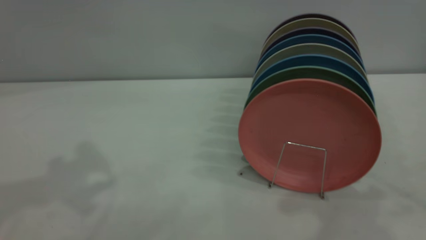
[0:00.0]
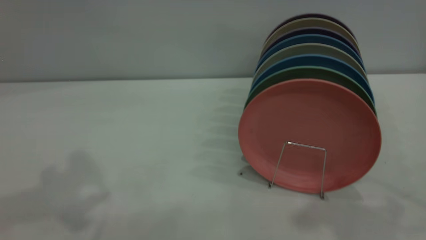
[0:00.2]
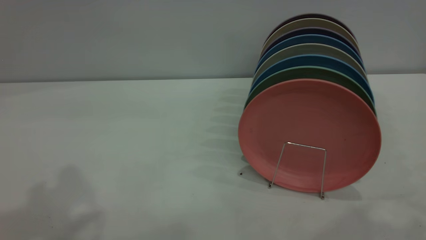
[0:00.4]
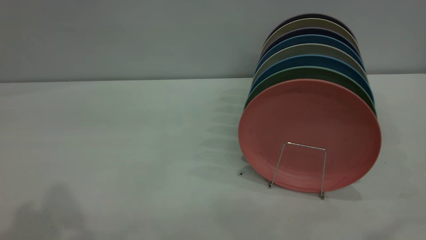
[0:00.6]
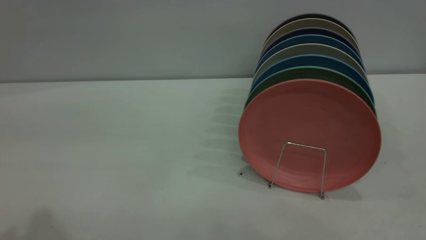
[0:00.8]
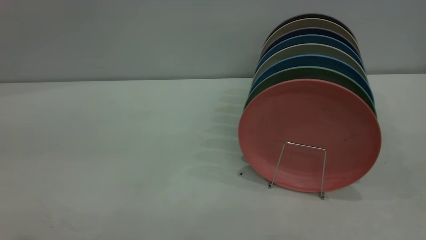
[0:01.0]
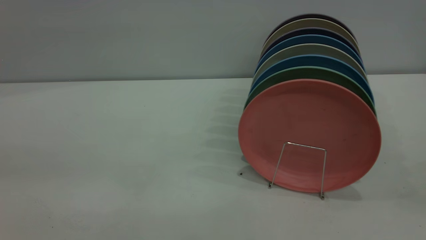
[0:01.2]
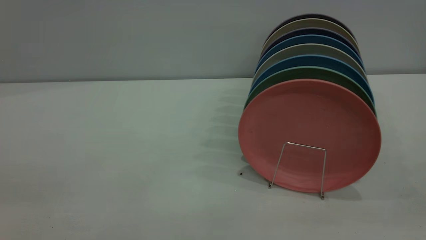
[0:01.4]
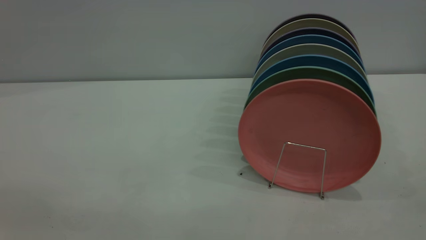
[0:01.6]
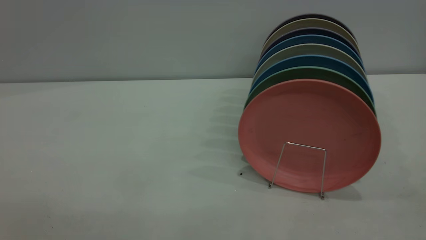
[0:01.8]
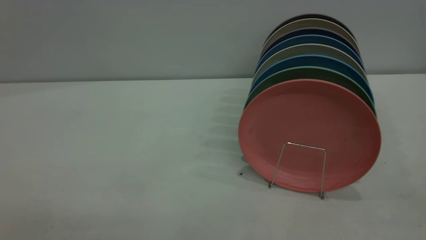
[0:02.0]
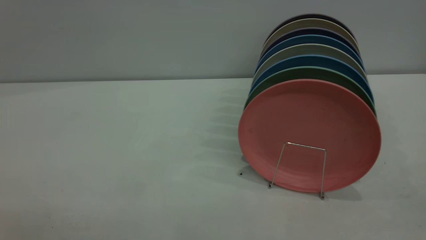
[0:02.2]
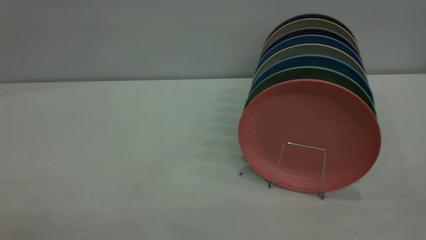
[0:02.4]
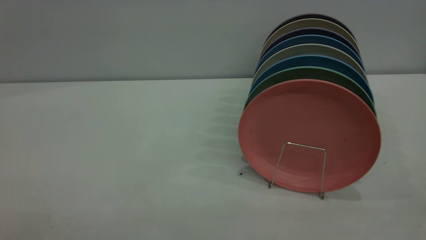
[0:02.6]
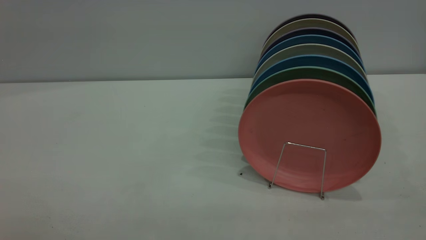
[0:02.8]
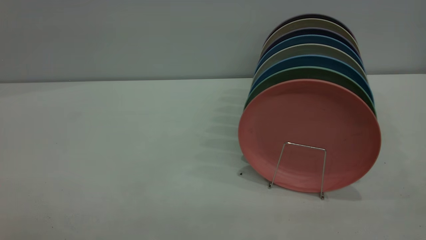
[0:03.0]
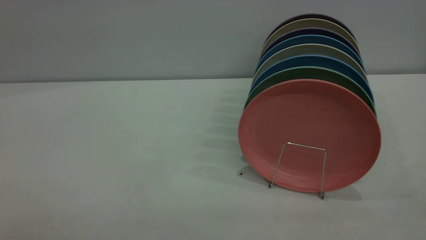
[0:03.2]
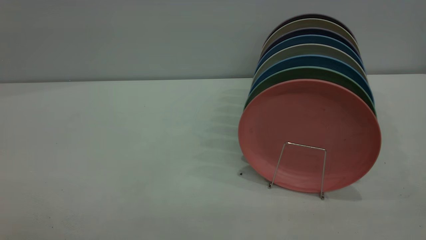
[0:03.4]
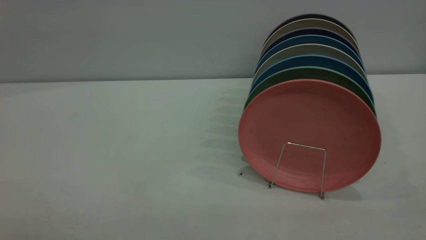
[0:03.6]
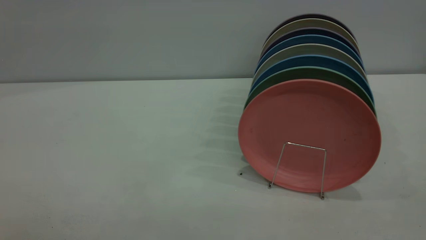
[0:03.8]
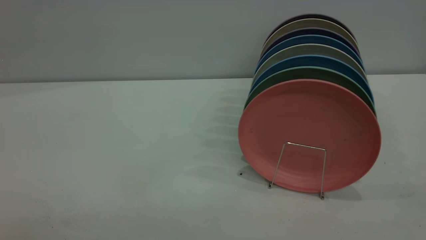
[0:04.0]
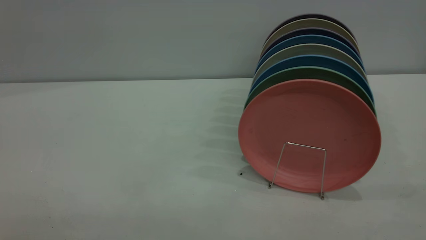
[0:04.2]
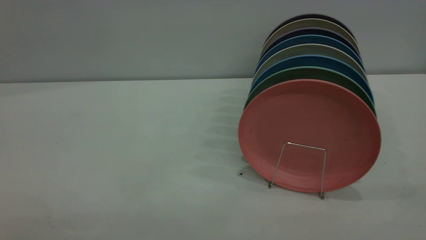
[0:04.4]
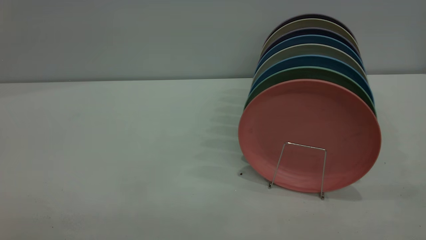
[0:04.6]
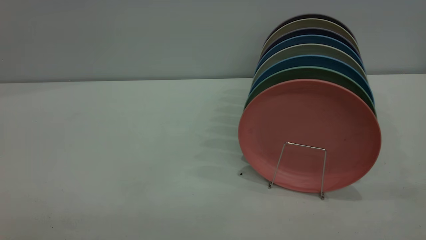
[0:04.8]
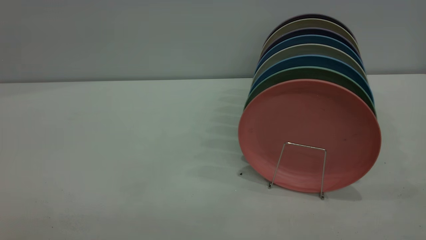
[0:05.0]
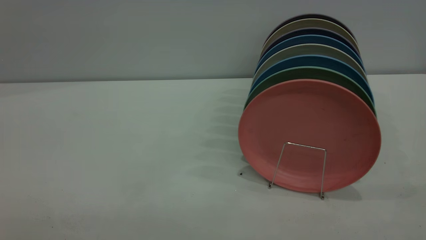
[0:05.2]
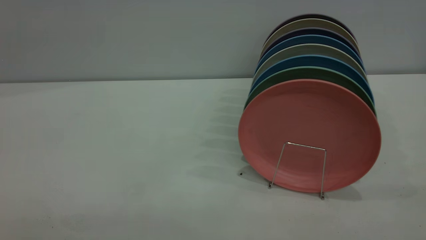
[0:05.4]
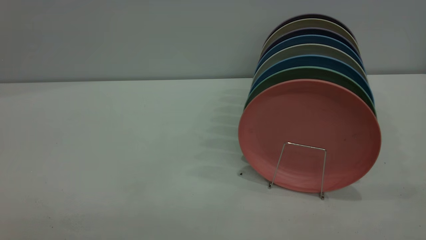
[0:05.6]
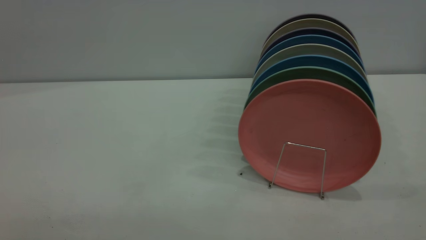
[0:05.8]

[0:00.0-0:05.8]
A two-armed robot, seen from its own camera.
Task of the whole recording: put the plate on the plate rack.
0:04.4 to 0:05.8: Both grippers stay about where they are.

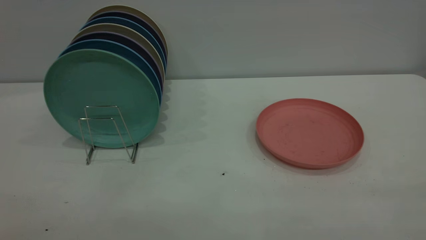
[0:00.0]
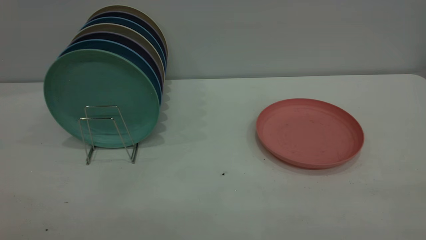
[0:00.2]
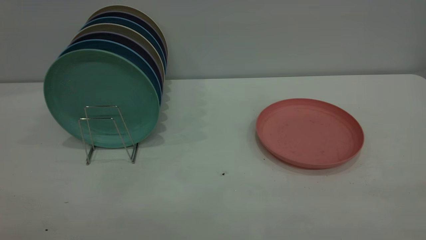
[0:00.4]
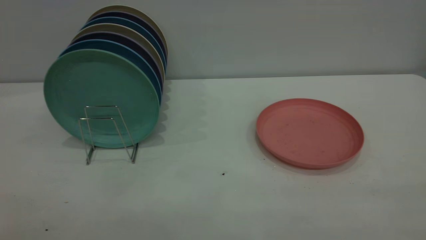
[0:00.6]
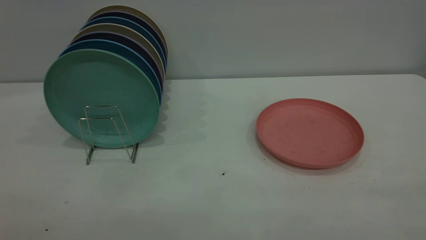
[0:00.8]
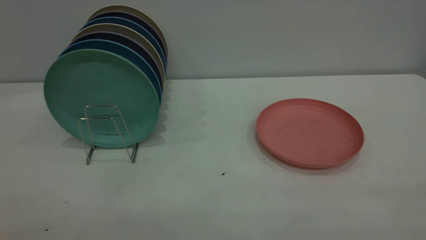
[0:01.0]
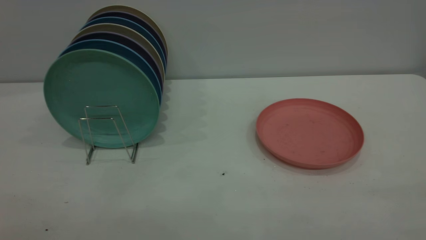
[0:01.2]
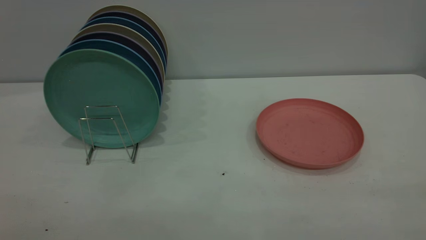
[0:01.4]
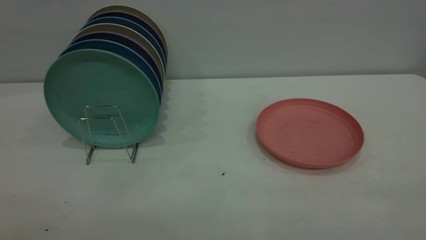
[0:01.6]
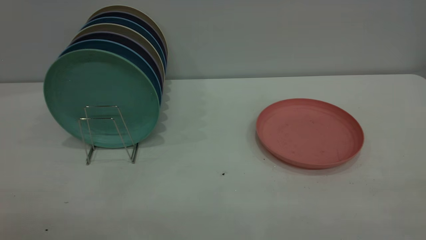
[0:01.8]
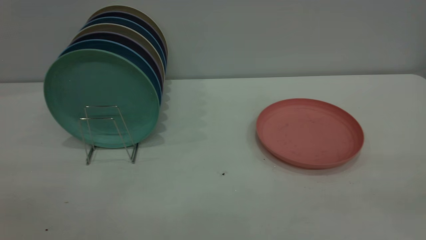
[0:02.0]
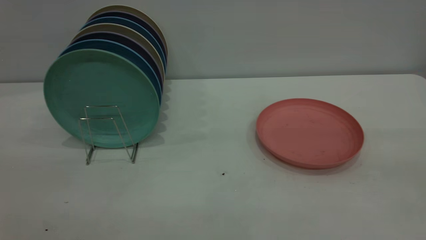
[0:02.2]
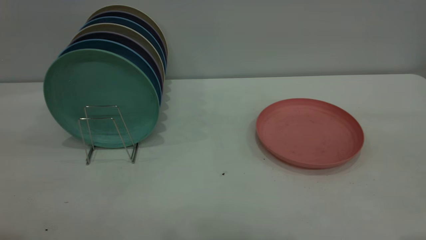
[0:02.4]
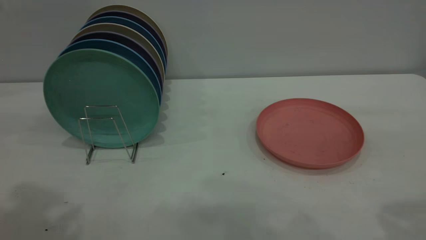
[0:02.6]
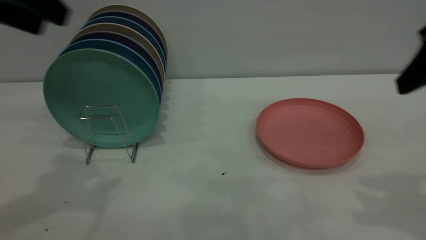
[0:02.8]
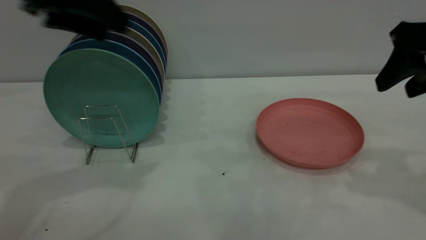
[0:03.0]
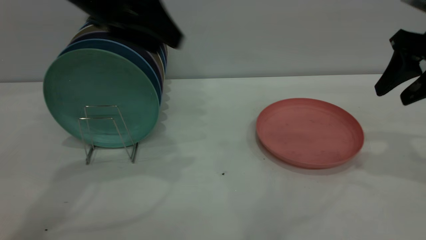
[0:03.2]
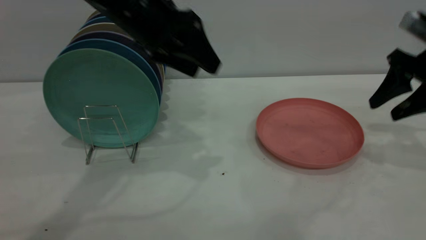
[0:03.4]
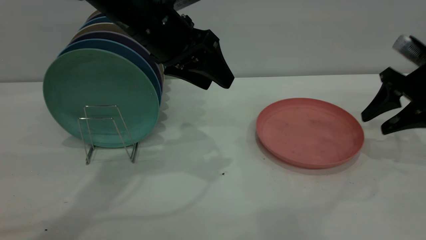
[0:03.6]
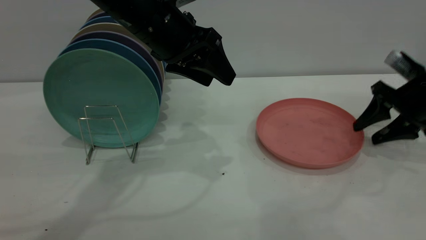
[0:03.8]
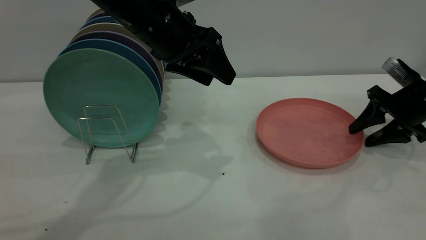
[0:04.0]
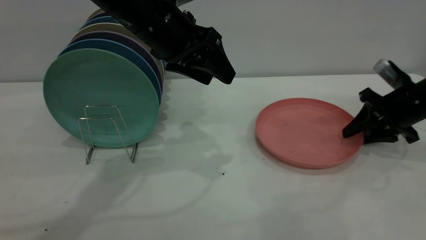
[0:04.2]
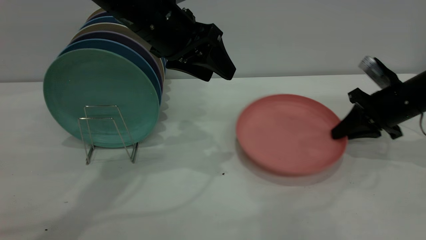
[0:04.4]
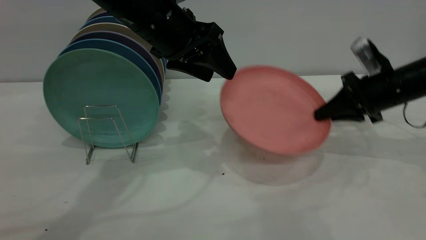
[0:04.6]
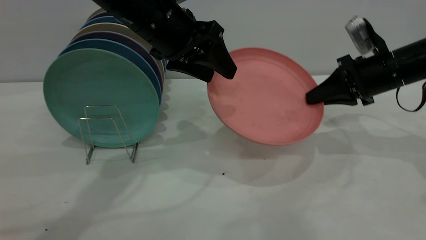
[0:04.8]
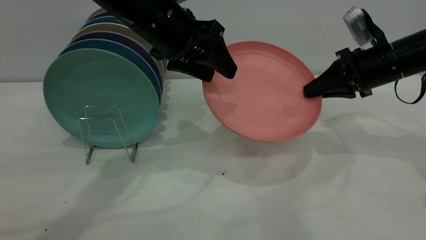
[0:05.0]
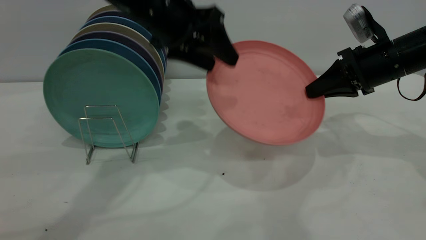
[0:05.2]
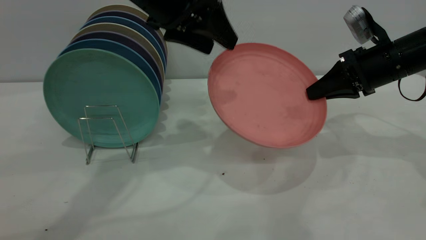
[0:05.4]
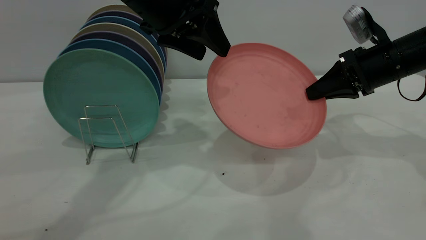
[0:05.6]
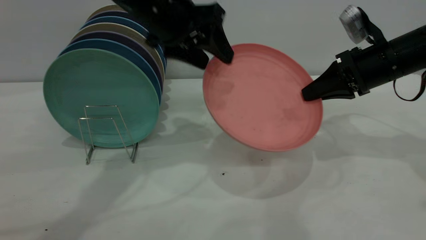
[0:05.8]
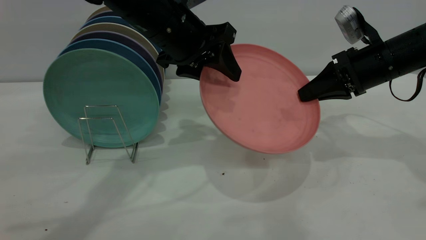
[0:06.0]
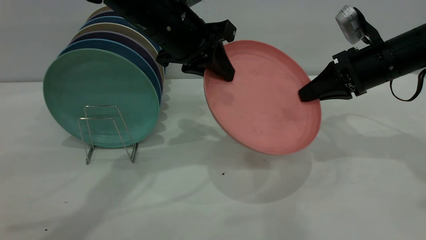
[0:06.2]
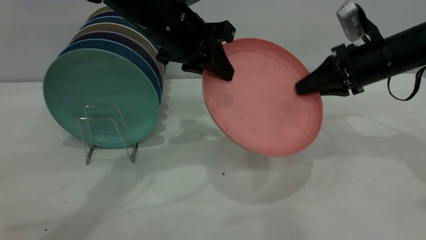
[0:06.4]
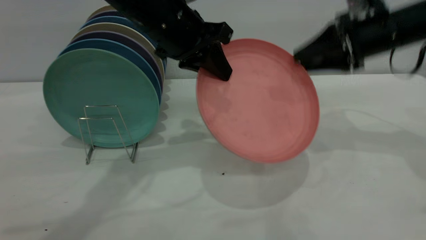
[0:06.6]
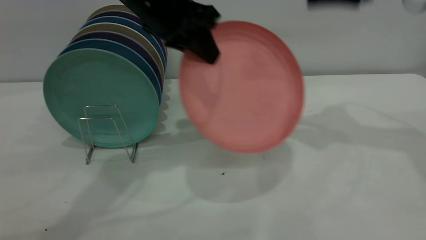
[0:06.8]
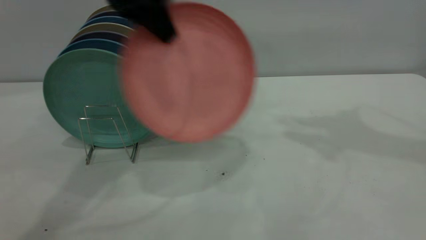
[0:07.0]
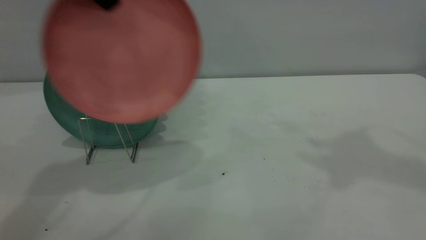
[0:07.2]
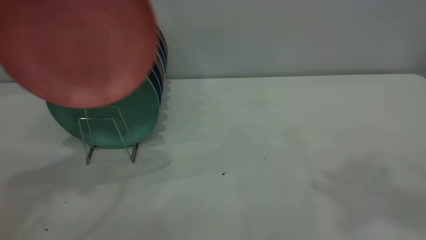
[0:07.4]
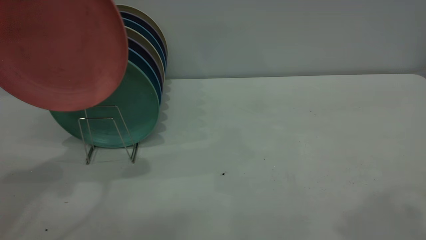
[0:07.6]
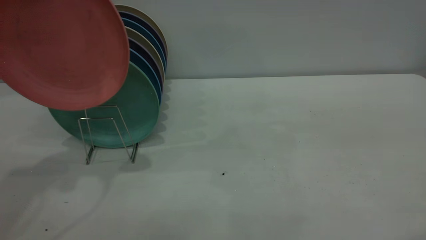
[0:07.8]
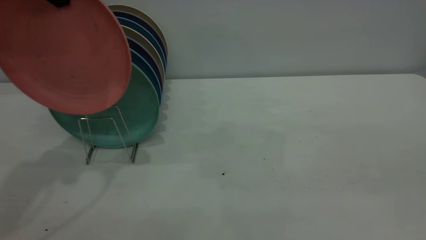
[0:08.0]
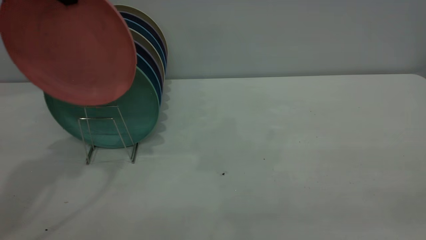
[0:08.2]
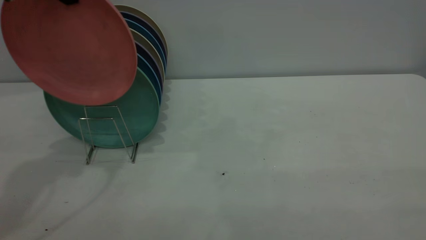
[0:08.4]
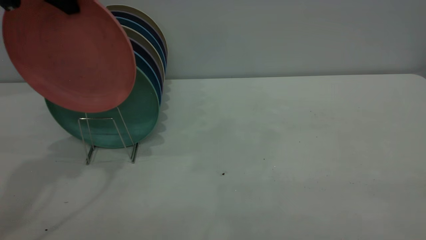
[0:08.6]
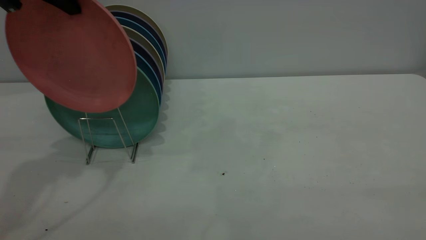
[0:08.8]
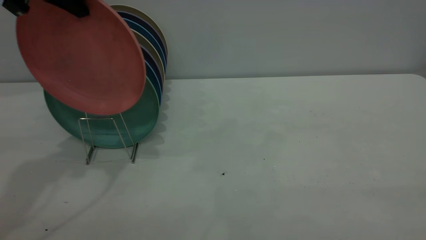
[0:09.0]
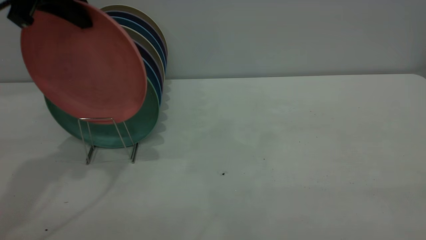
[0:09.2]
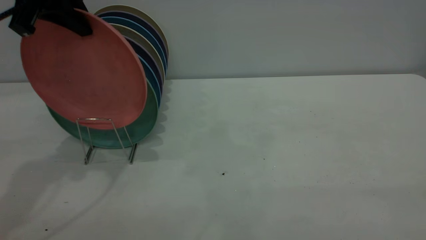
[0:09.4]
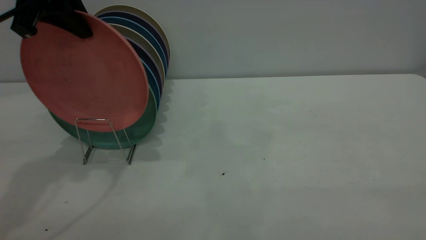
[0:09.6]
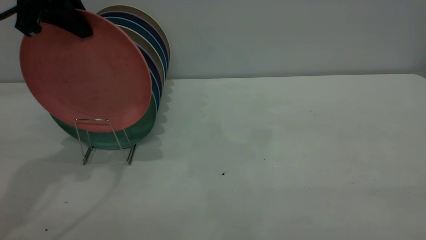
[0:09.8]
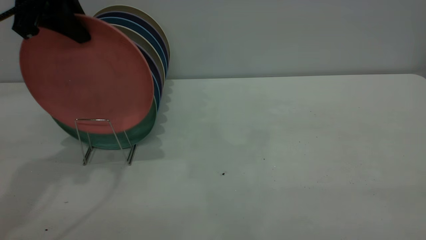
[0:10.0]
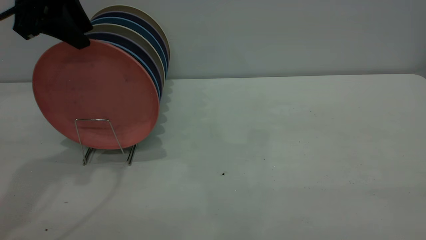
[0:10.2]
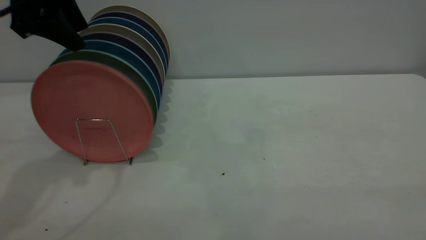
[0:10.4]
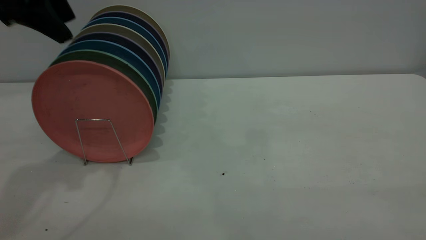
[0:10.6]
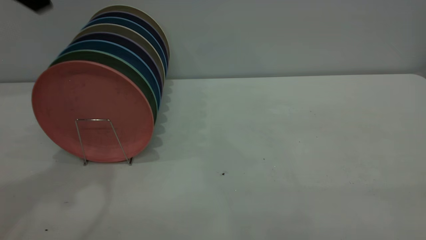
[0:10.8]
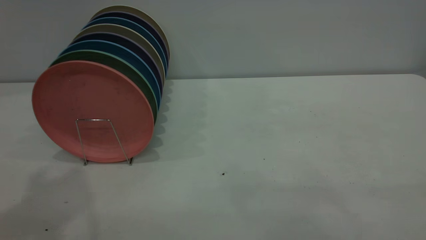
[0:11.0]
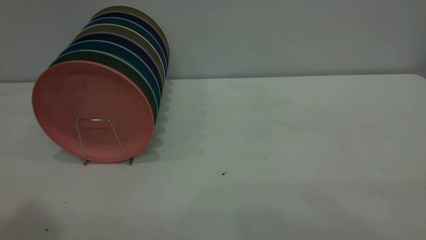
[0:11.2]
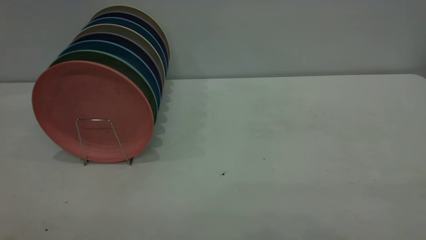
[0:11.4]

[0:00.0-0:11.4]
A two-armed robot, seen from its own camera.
Task of the whole recording: the right gripper grasp the pink plate, the right gripper pass the pink plate to the left gripper, and the left gripper place the pink plate on the plate rack.
Step, 0:00.0 to 0:04.4: Pick up the plate with the right gripper.
Step, 0:04.6 to 0:06.6: Pass the plate from the right gripper to the left gripper.
Step, 0:06.8 to 0:10.6: Place the plate on the shelf.
0:00.0 to 0:01.4: Both grippers stay about where they are.
0:01.4 to 0:02.8: Both grippers travel together forward, roughly 30 cm.
0:02.8 to 0:04.2: The left gripper shifts roughly 20 cm to the right, downward and forward, while the right gripper moves downward and forward, approximately 25 cm, and closes.
0:04.2 to 0:05.6: The right gripper goes roughly 10 cm upward and to the left, and closes its fingers.
0:05.6 to 0:07.2: The left gripper goes approximately 15 cm upward and to the left, and closes; the right gripper shifts some 35 cm upward, and opens its fingers.
0:07.2 to 0:08.6: The right gripper goes about 35 cm backward, and closes its fingers. Meanwhile the left gripper shifts by roughly 5 cm.
0:08.6 to 0:10.0: The grippers make only small movements.
0:10.0 to 0:11.4: The left gripper goes some 35 cm backward and upward, and opens its fingers.
